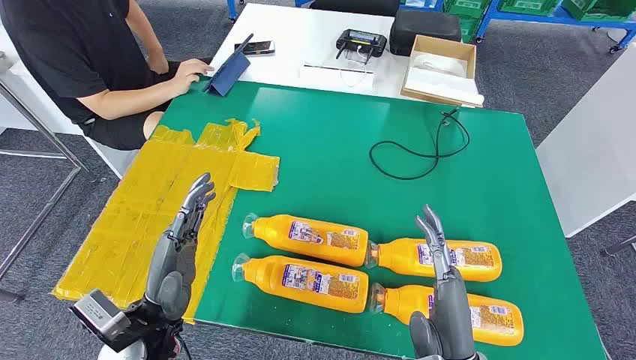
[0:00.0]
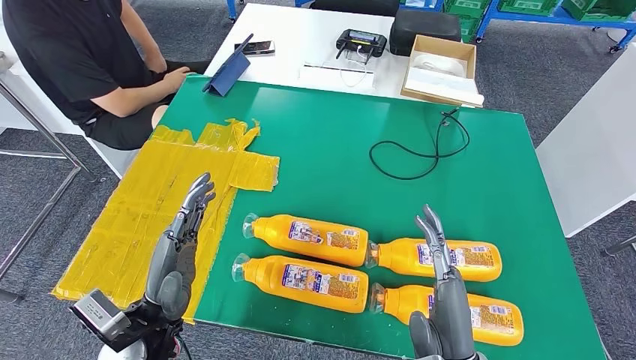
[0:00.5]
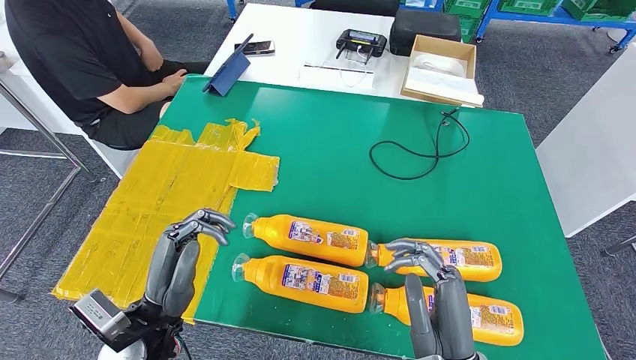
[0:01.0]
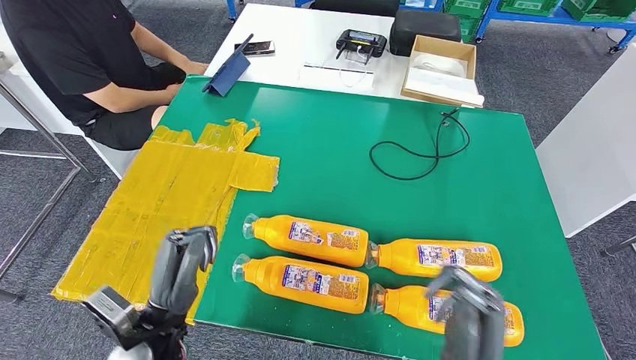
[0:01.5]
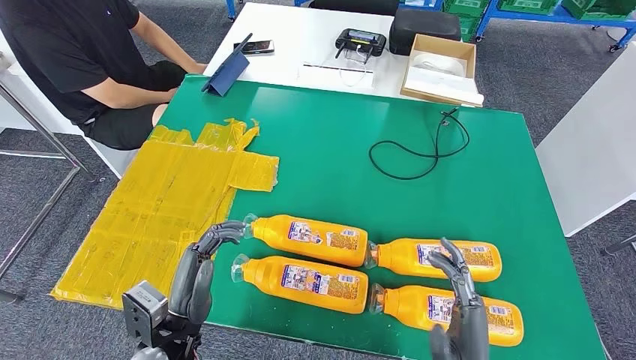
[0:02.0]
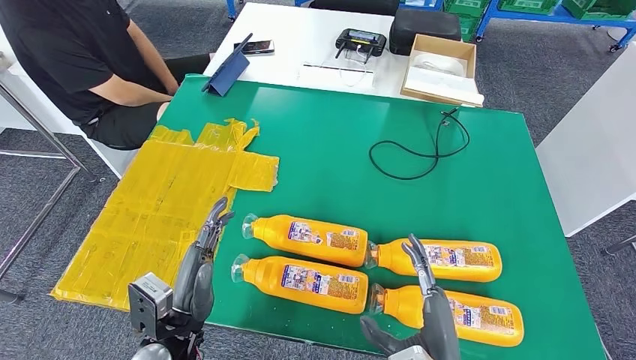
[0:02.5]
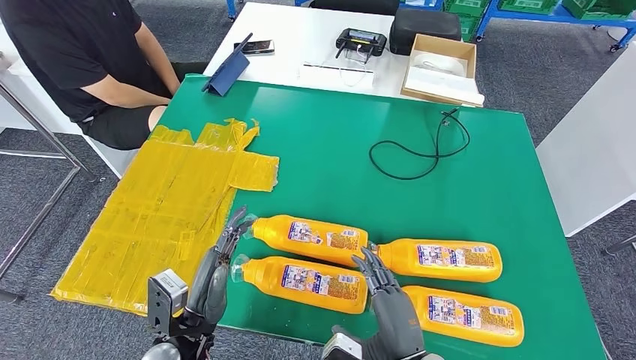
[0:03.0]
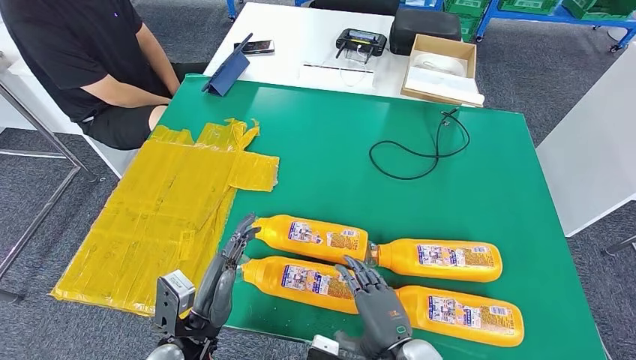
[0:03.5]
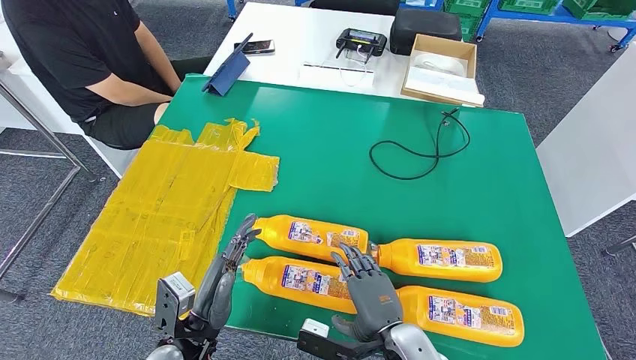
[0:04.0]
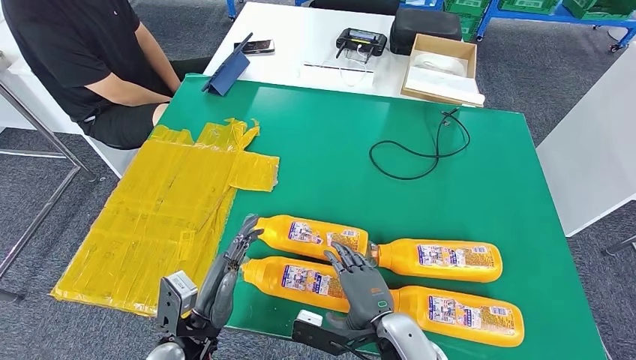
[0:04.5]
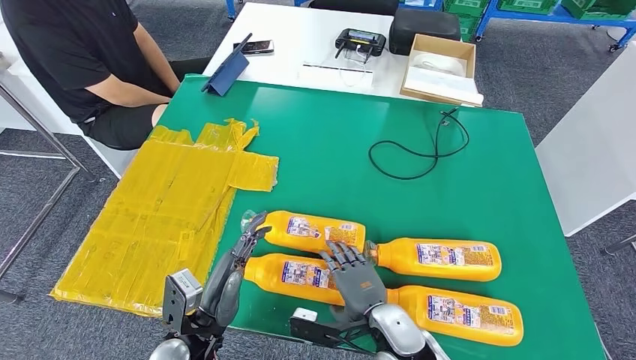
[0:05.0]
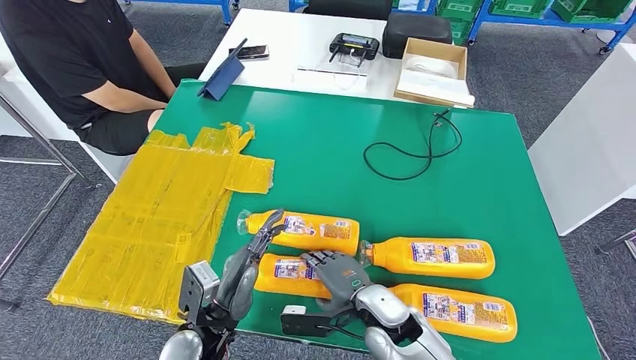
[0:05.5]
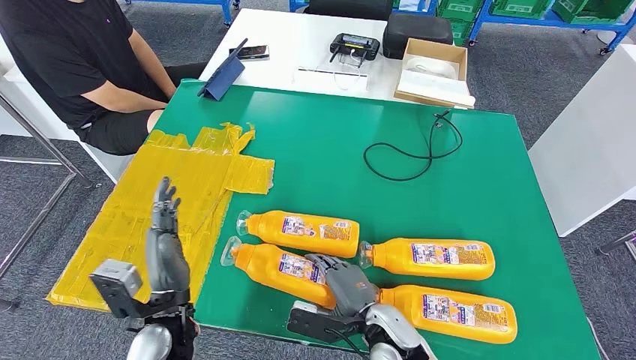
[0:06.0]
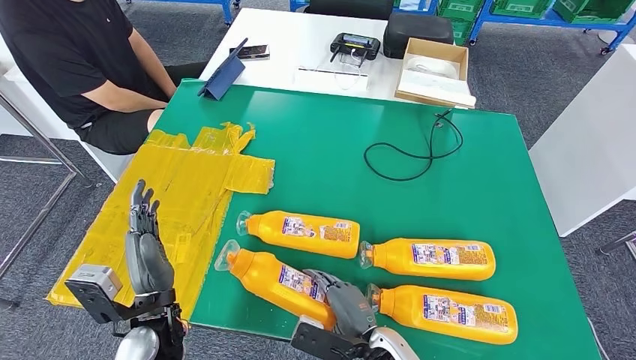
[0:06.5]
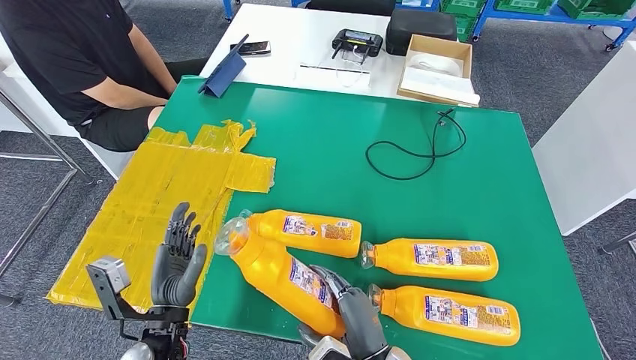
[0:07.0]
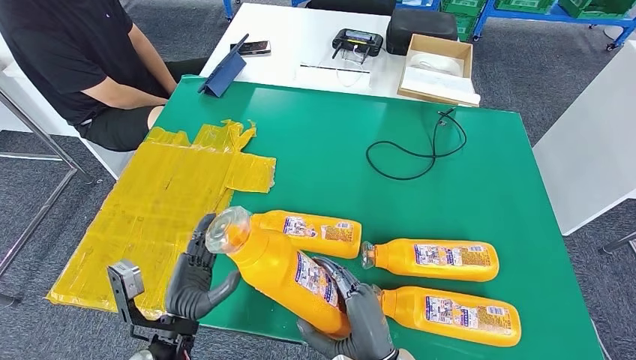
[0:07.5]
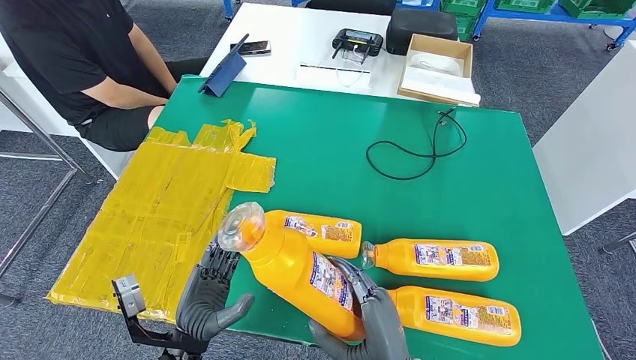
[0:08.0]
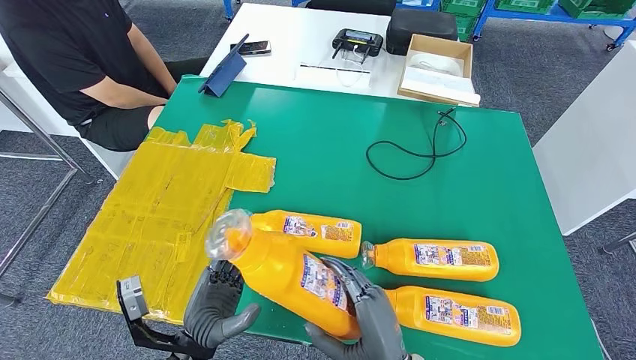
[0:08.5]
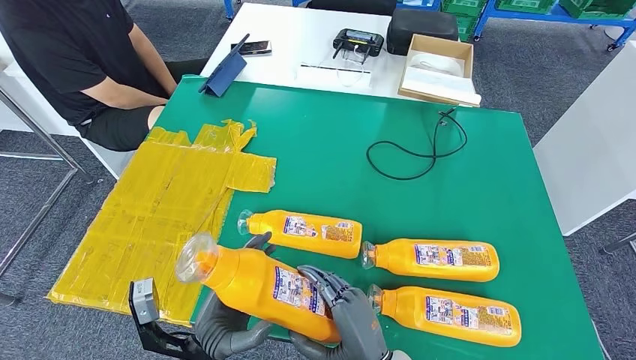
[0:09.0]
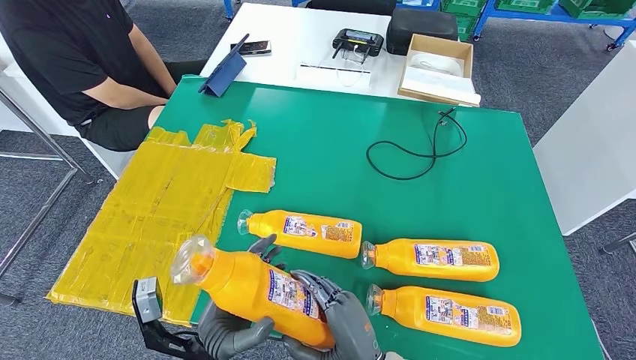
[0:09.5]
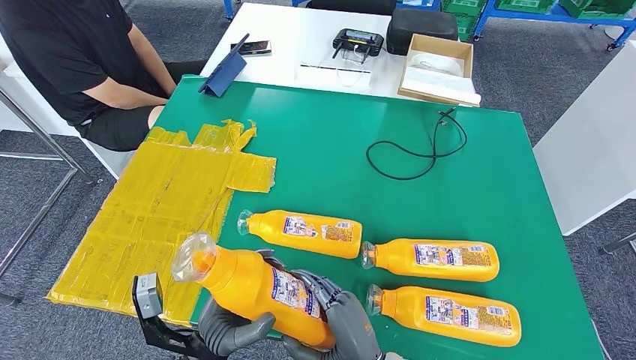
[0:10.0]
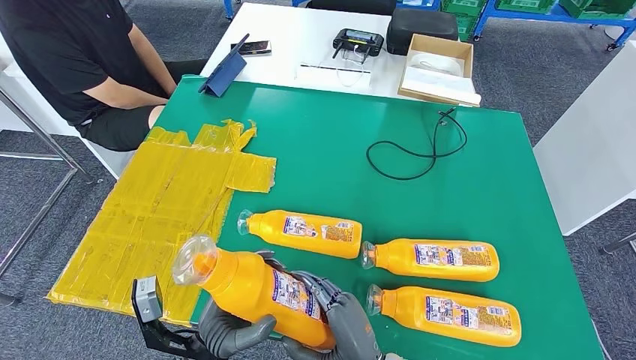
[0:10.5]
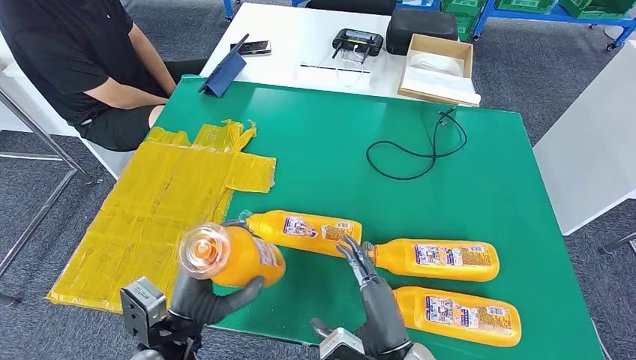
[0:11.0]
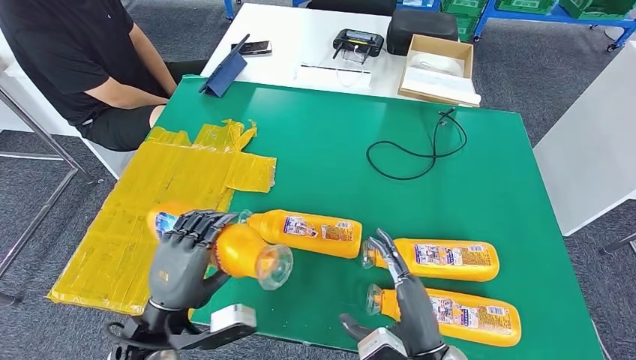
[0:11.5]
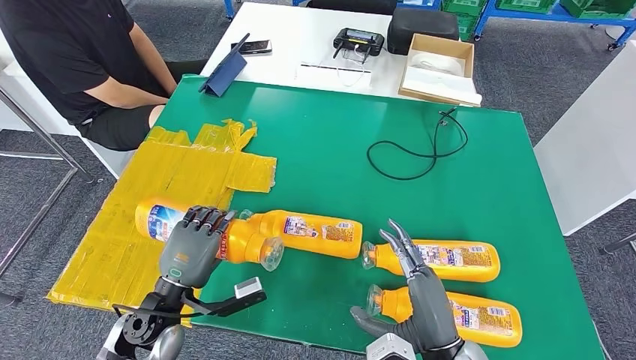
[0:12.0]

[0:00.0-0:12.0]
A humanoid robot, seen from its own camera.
Step, 0.0 to 9.0 s: Take the bottle from the table.
2.0 to 4.0 s: The right hand goes some 10 cm to the left and forward.
8.0 to 10.0 s: There are only small adjustments of the hands.
10.0 to 12.0 s: The left hand shifts some 10 cm to the left and forward. Meanwhile the right hand shifts some 10 cm to the right.

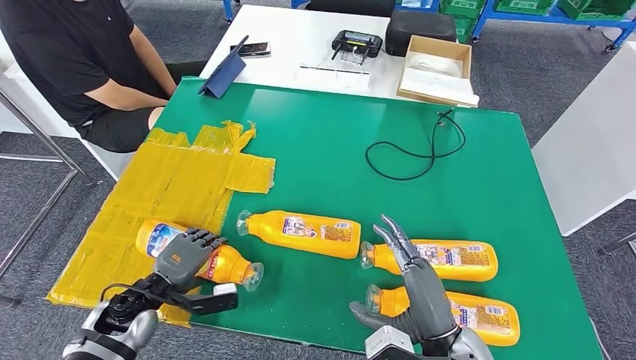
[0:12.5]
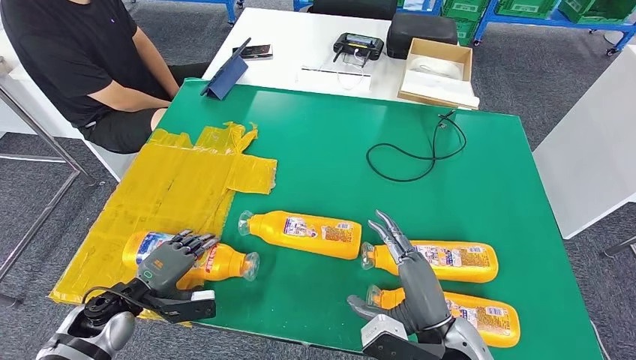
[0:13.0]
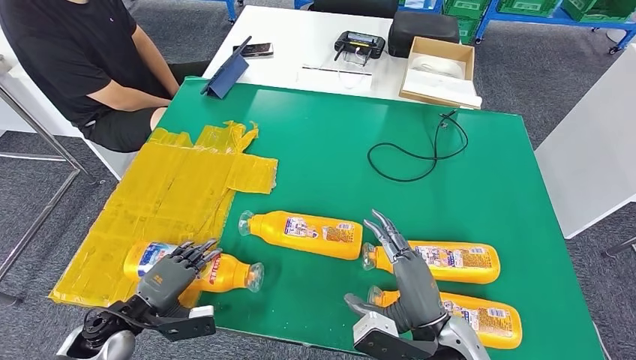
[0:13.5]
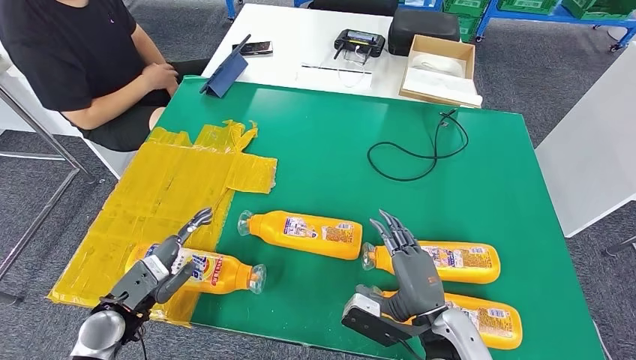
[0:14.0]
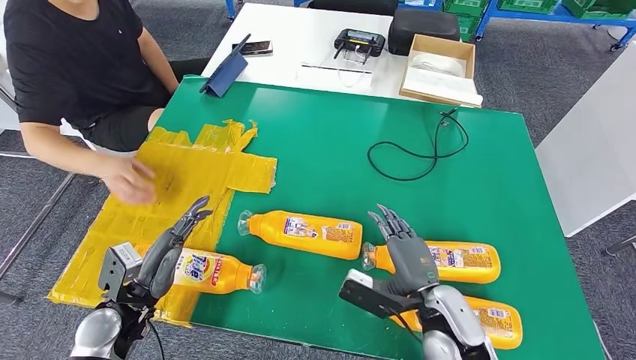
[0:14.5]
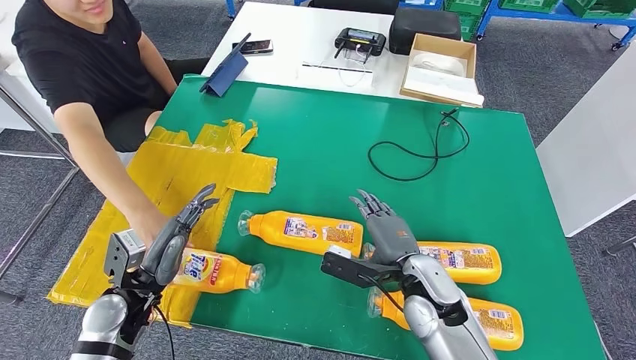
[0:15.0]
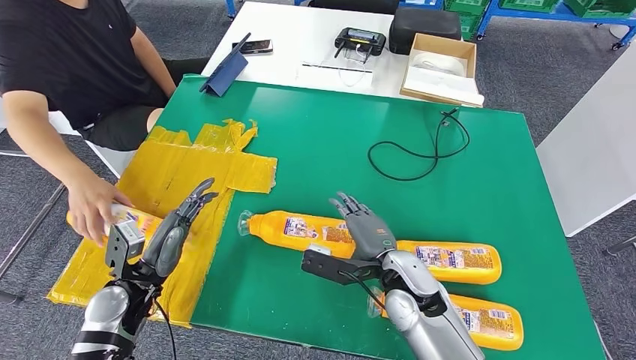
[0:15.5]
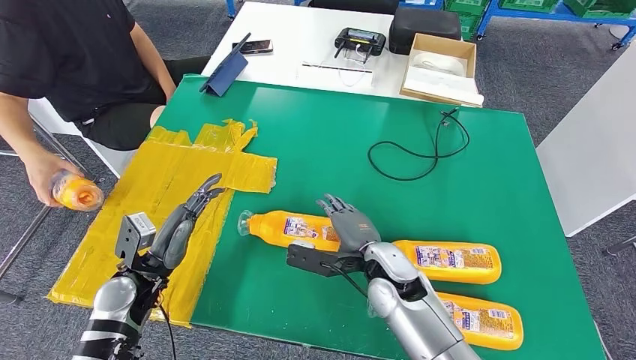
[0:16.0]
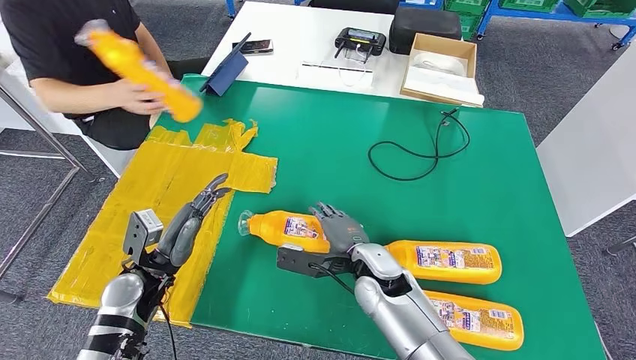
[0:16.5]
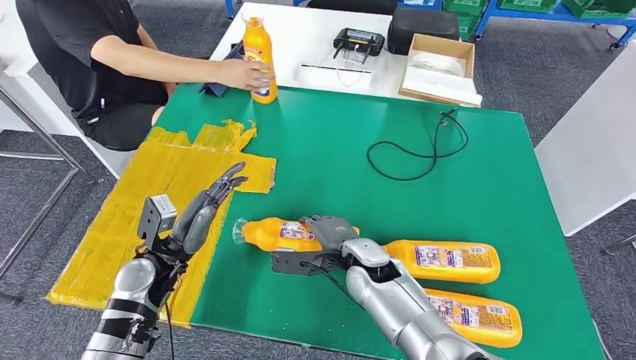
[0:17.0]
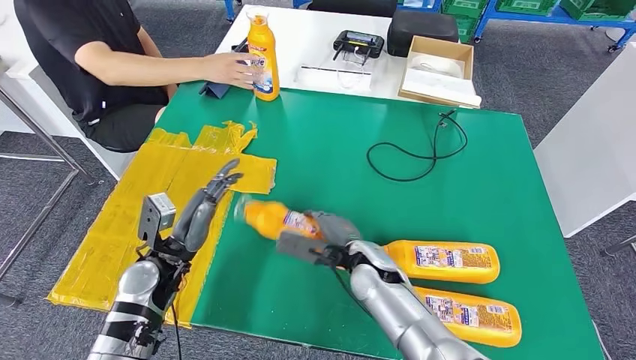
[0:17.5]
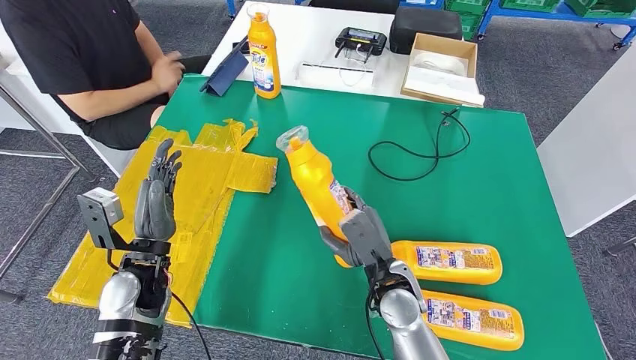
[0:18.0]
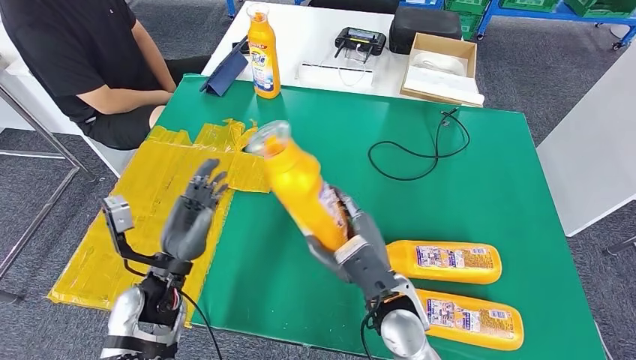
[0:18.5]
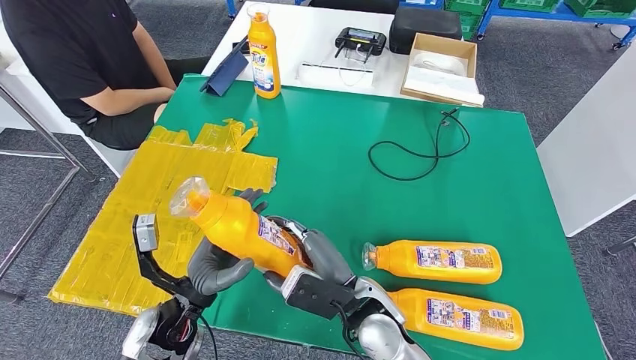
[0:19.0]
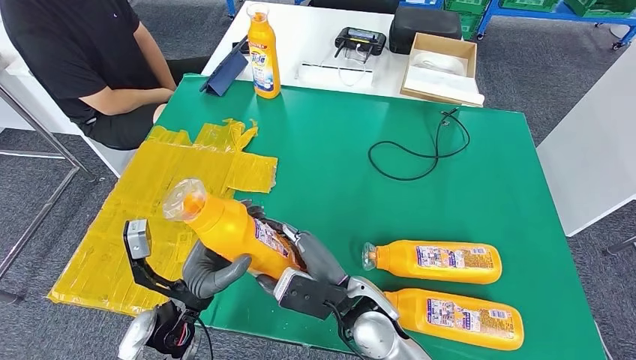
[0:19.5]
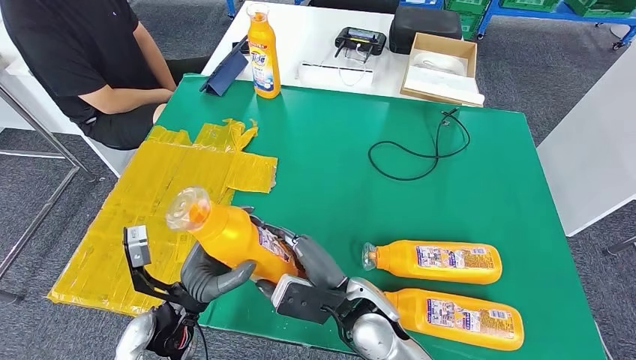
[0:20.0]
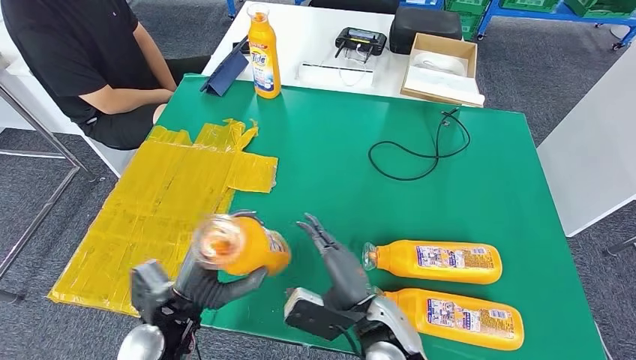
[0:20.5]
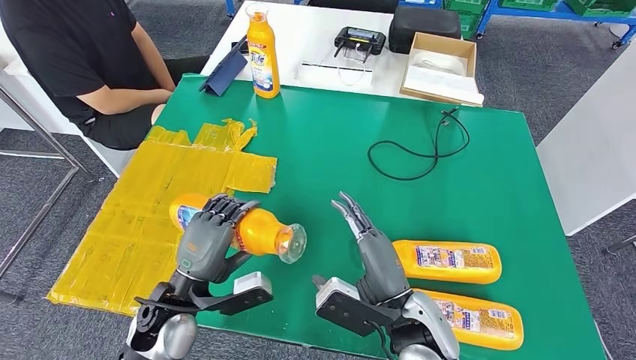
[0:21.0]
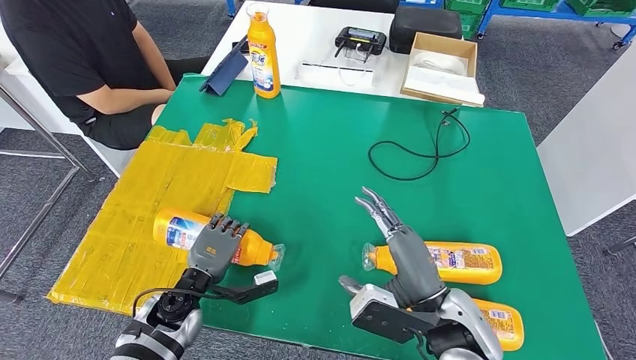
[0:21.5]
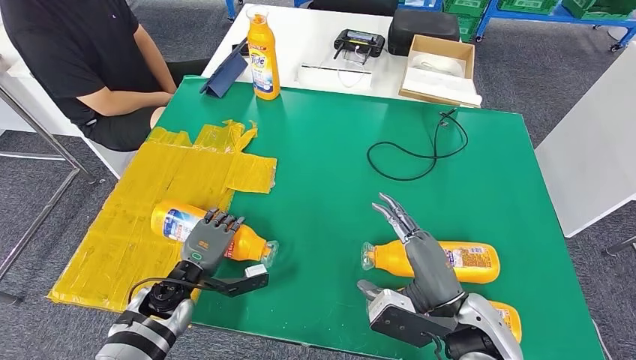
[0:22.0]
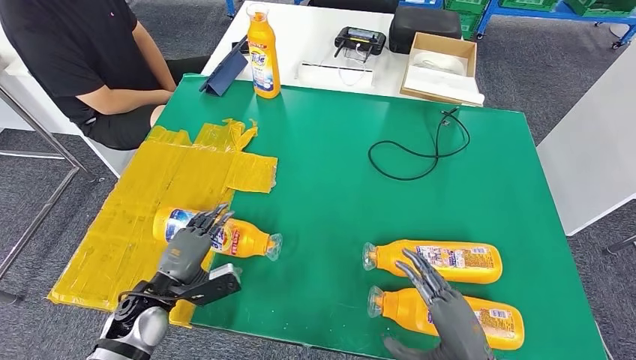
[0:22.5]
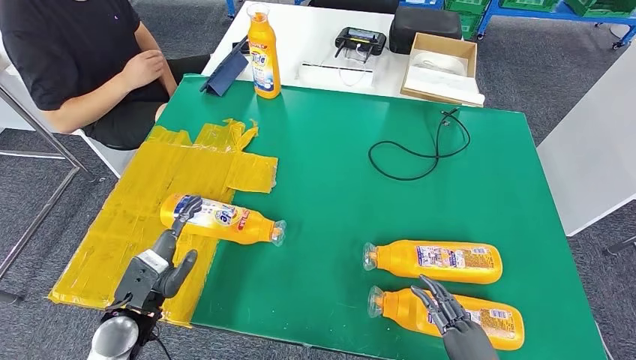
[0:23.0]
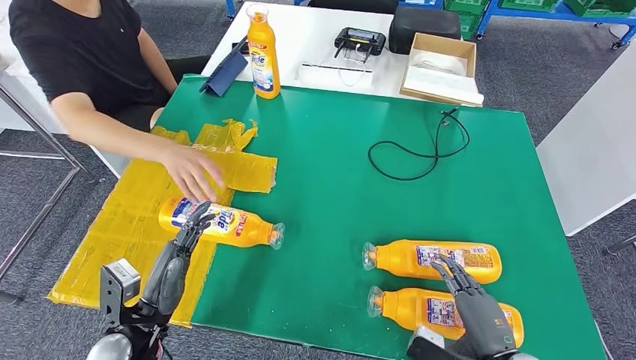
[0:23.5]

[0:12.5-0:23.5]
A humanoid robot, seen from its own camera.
Step, 12.5 to 14.5 s: Flip the bottle to face forward.
Step, 15.0 to 20.0 s: Pick up the bottle from the table.
14.5 to 16.0 s: The right hand moves to the left and forward, approximately 10 cm.
18.0 to 20.0 s: The right hand is displaced to the left by about 5 cm. Meanwhile the left hand travels to the right and backward by about 10 cm.
20.0 to 21.5 s: The right hand shifts approximately 15 cm to the right and upward, while the left hand travels downward and forward by roughly 10 cm.
21.5 to 23.5 s: The left hand heads backward and upward, covering roughly 10 cm, while the right hand travels to the right, downward and backward by roughly 15 cm.
